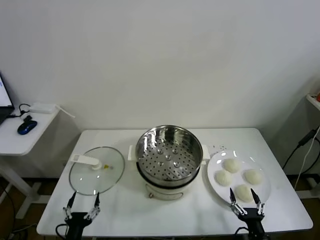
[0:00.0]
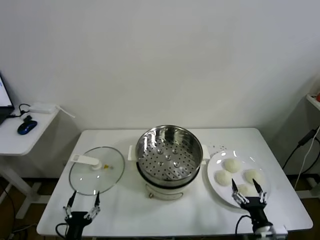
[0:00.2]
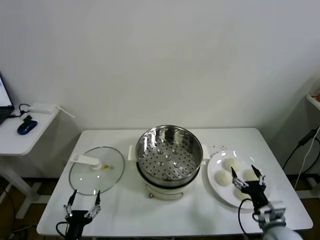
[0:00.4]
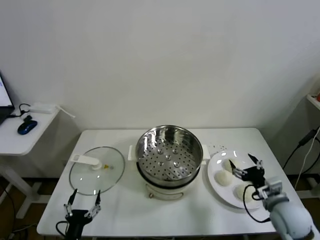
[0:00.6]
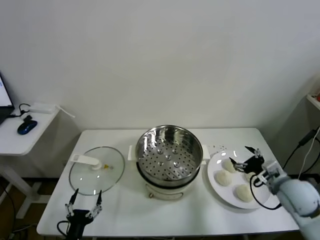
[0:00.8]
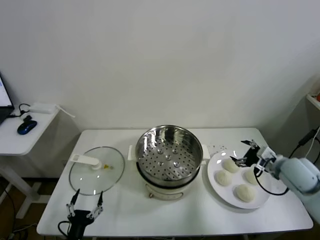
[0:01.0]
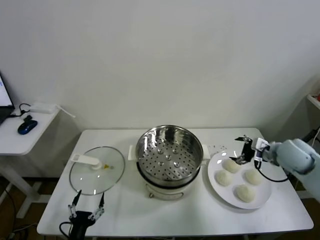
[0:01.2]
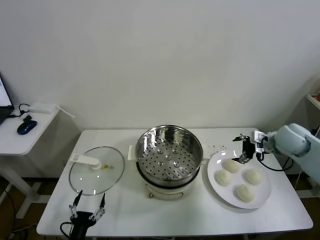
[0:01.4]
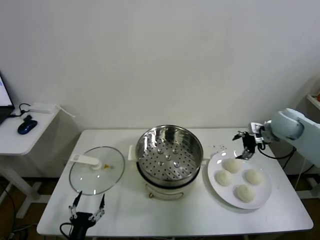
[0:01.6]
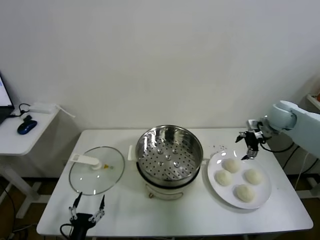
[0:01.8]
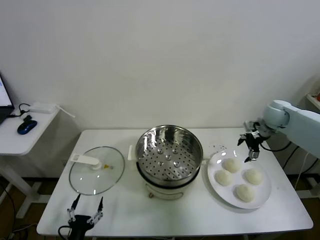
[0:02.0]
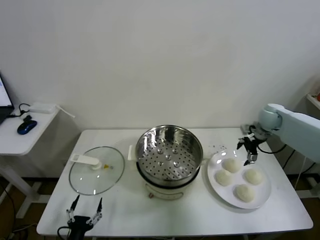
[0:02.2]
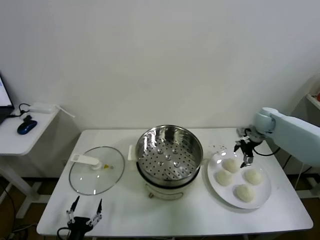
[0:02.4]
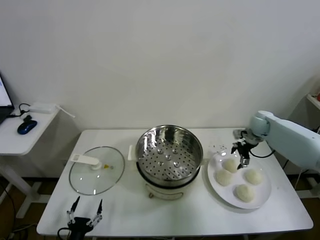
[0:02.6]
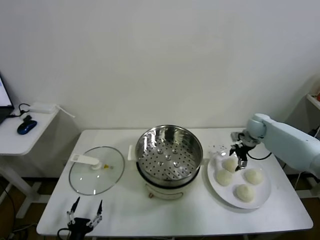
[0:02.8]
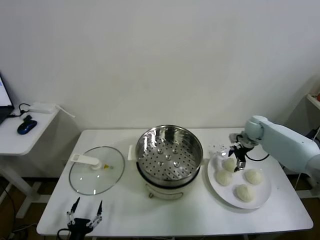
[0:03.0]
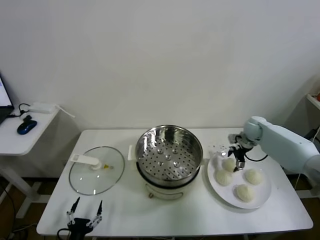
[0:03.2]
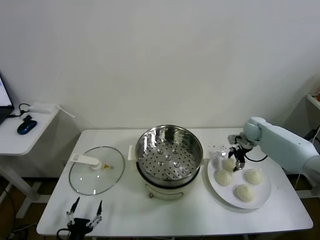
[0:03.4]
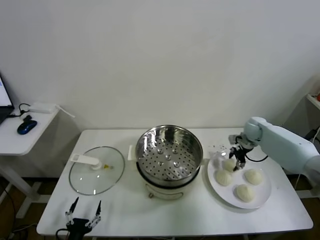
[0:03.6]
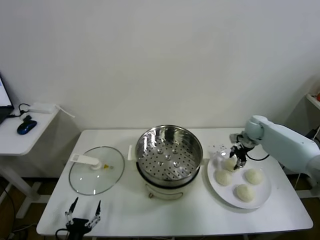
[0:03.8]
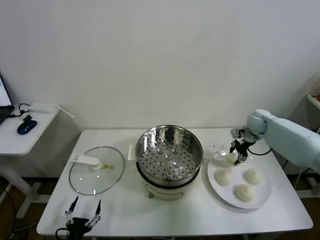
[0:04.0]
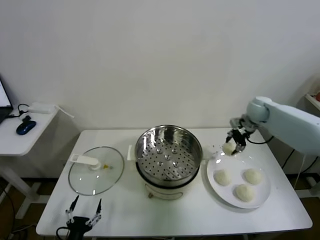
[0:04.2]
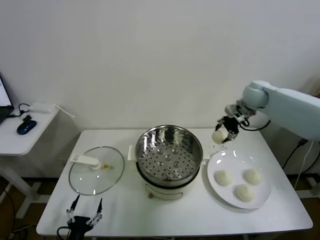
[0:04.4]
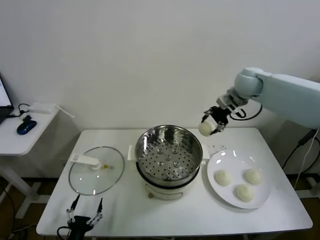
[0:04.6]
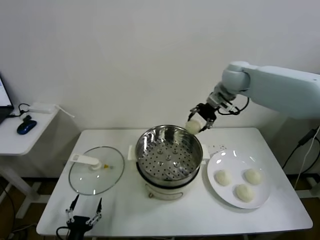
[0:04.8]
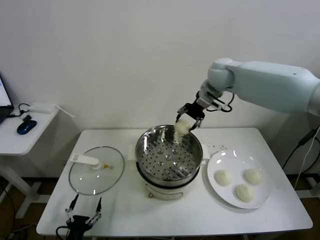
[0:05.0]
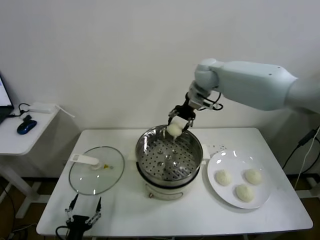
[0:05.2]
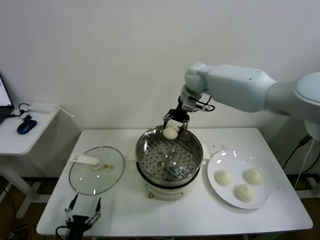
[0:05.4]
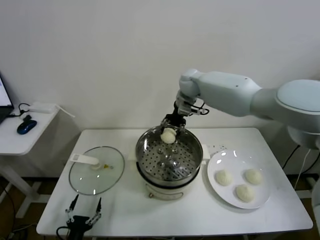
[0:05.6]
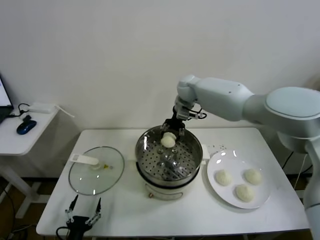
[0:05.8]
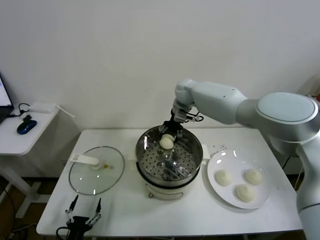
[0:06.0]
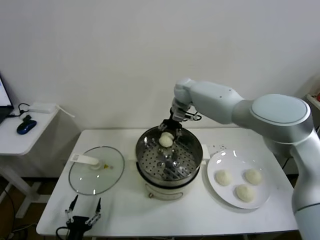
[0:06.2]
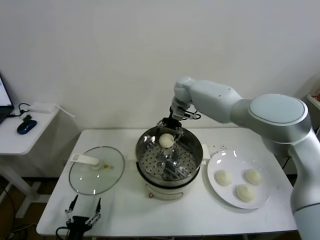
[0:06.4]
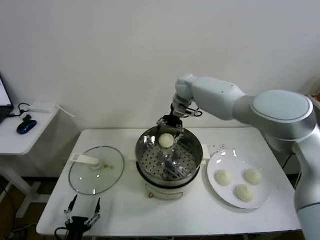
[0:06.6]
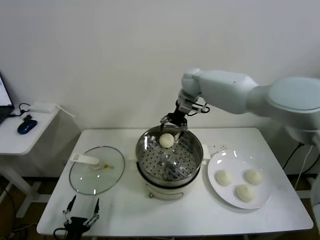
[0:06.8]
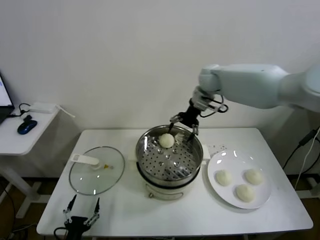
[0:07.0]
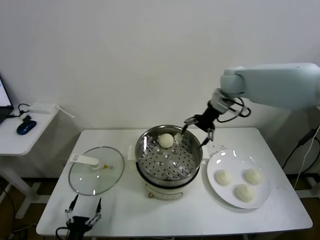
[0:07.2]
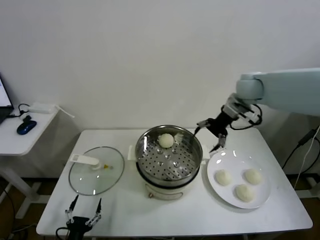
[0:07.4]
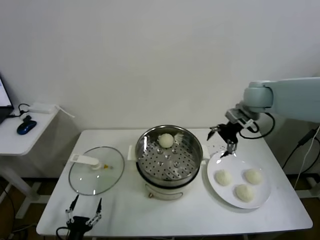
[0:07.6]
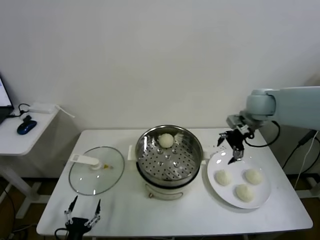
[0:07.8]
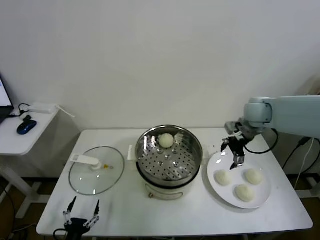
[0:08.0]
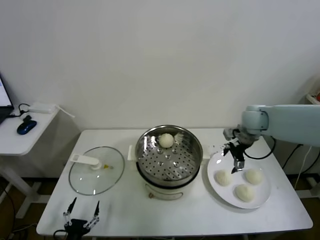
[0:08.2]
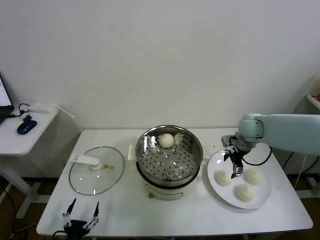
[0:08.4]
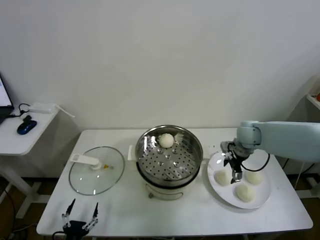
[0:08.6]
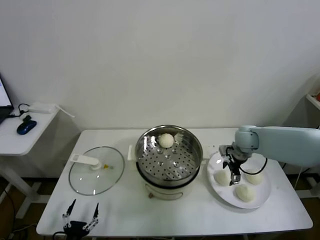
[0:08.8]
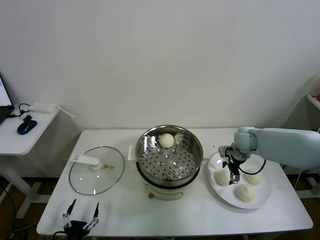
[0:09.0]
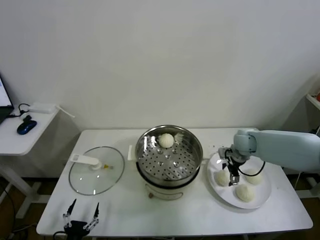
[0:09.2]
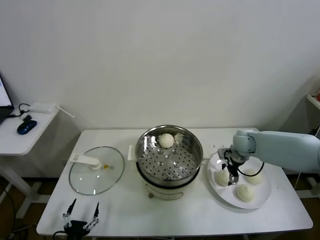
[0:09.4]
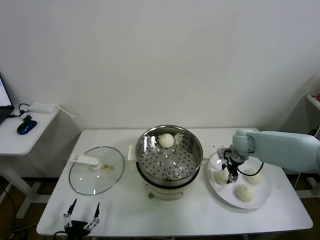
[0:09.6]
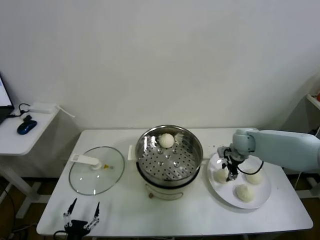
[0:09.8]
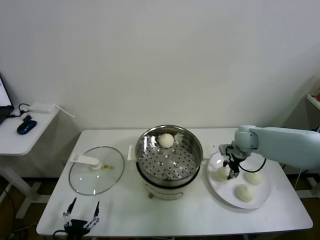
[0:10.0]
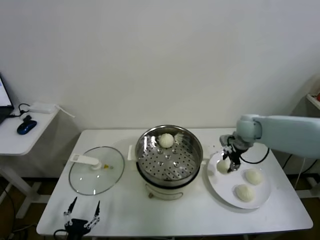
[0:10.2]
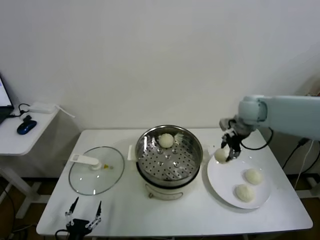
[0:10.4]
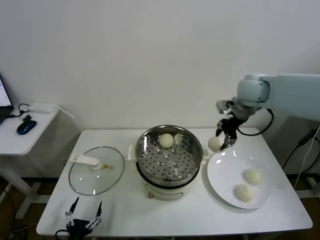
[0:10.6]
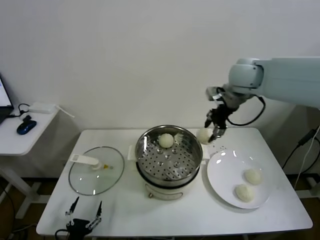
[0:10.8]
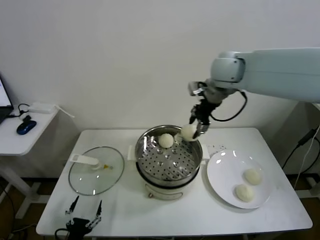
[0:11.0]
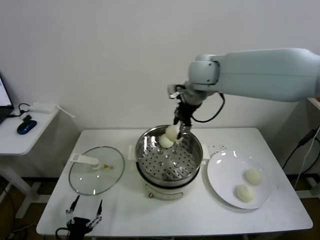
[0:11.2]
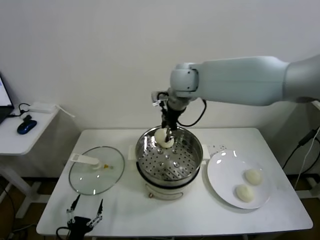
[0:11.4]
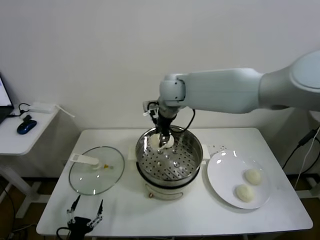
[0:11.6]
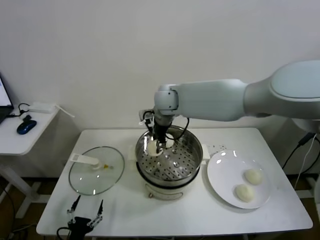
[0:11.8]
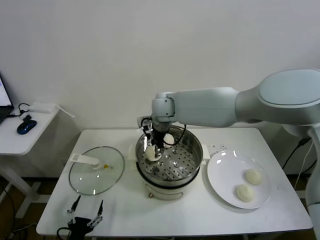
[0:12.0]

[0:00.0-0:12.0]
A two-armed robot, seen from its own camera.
Task of the whole recording: take steamed baozi put them in steamer.
Step, 0:00.0 to 0:03.6: Grasp the baozi in the plate with right gripper.
Step, 0:03.8 to 0:06.6: Place the baozi on the steamer with right gripper.
Step, 0:06.8 to 0:09.8: Grasp the baozi in the plate with right gripper.
0:01.6 to 0:03.0: The right gripper moves downward and forward, approximately 15 cm.
0:03.0 to 0:04.4: The right gripper heads upward and to the left, covering some 20 cm, and closes up.
0:04.4 to 0:06.0: The right gripper shifts some 20 cm to the left.
0:06.0 to 0:07.6: The right gripper heads to the right and backward, covering approximately 25 cm, and opens its fingers.
0:07.6 to 0:09.0: The right gripper moves downward, about 20 cm.
0:09.0 to 0:10.4: The right gripper shifts roughly 15 cm upward, and closes.
0:10.4 to 0:12.0: The right gripper moves to the left, about 30 cm.

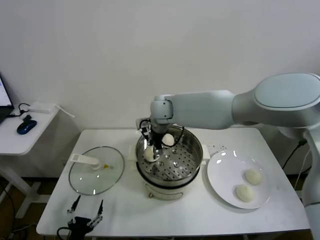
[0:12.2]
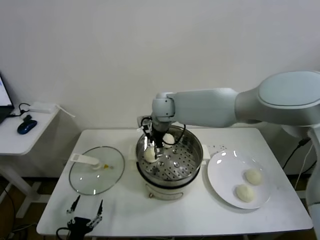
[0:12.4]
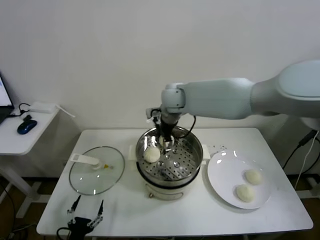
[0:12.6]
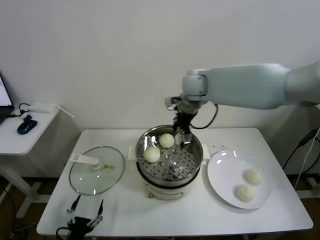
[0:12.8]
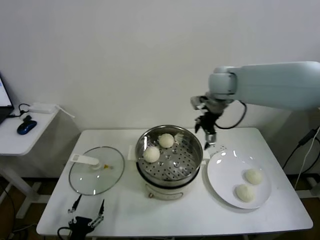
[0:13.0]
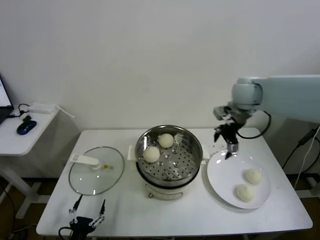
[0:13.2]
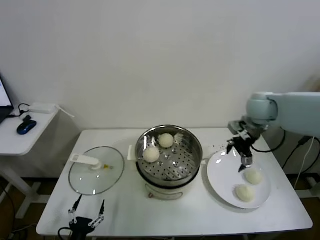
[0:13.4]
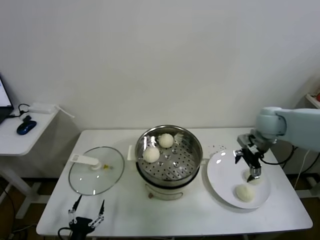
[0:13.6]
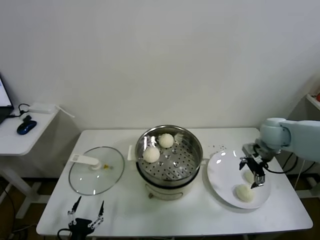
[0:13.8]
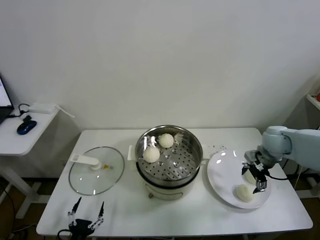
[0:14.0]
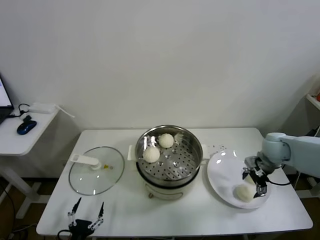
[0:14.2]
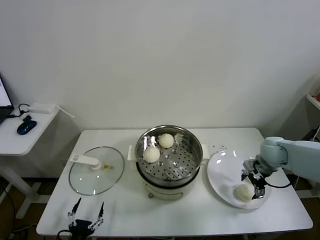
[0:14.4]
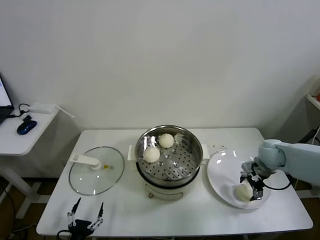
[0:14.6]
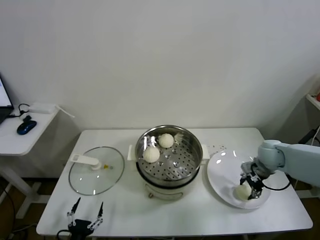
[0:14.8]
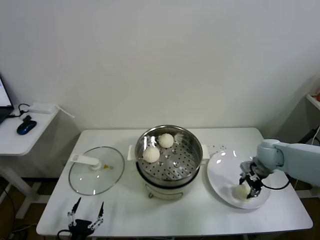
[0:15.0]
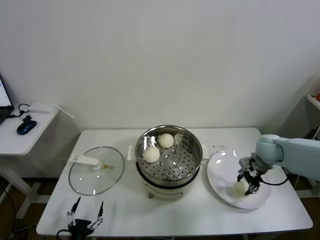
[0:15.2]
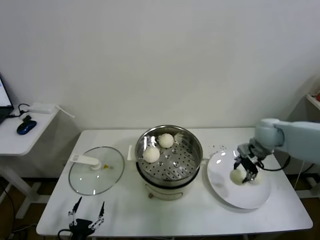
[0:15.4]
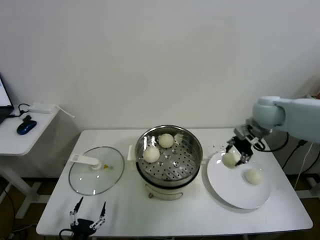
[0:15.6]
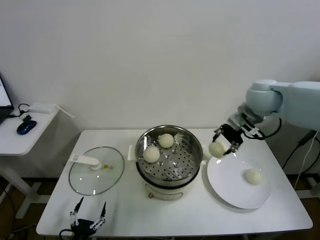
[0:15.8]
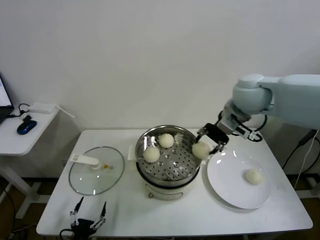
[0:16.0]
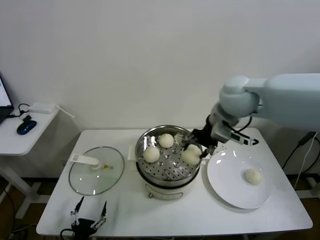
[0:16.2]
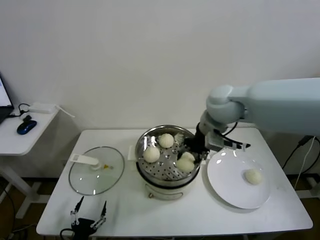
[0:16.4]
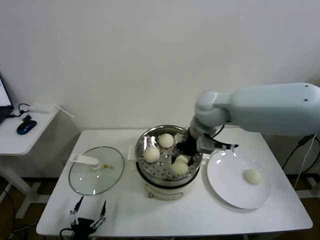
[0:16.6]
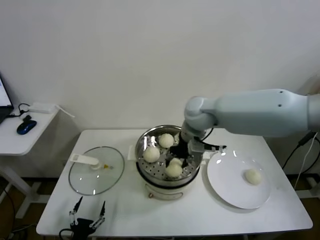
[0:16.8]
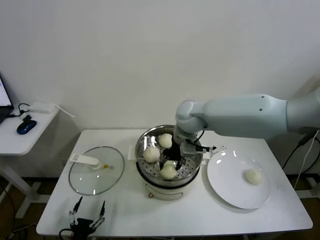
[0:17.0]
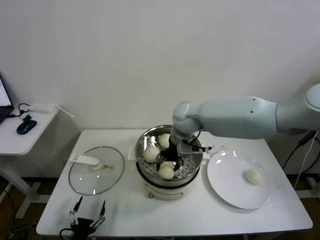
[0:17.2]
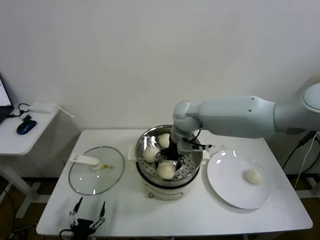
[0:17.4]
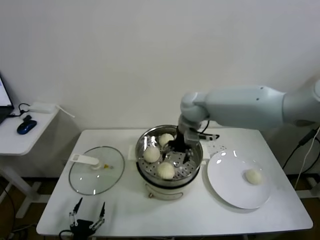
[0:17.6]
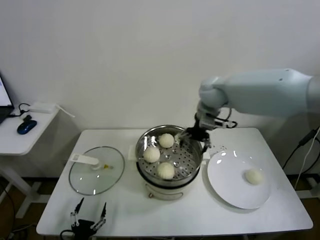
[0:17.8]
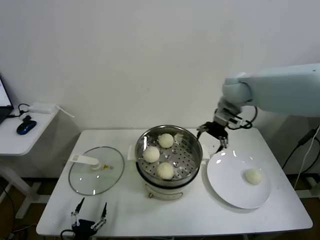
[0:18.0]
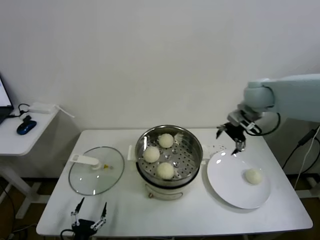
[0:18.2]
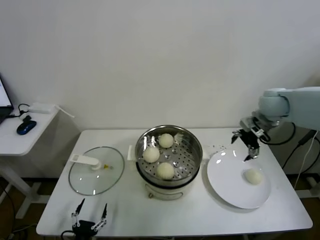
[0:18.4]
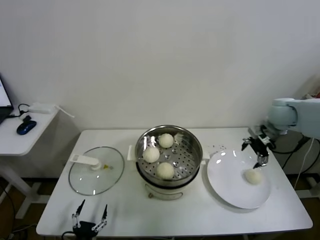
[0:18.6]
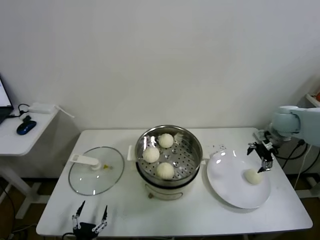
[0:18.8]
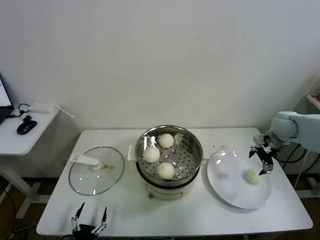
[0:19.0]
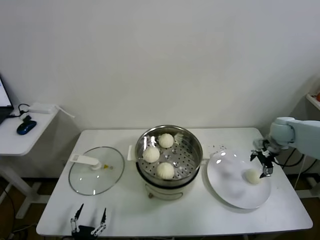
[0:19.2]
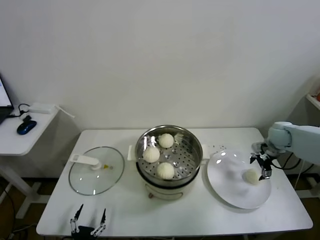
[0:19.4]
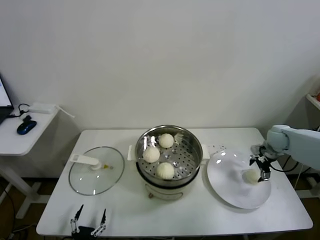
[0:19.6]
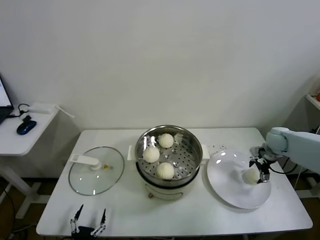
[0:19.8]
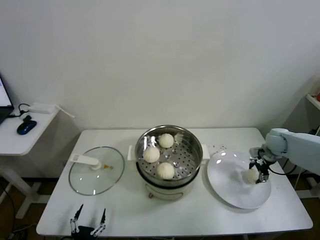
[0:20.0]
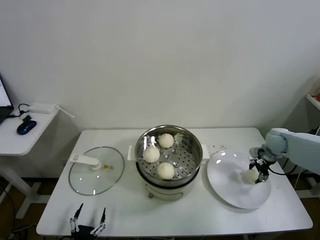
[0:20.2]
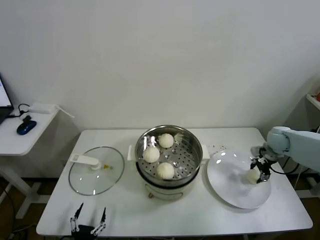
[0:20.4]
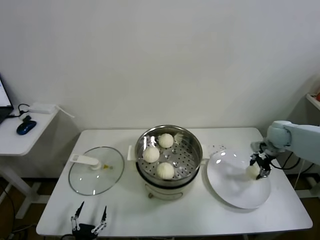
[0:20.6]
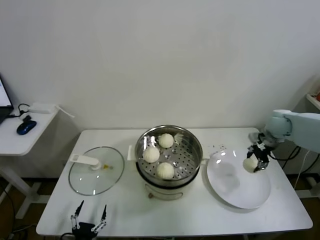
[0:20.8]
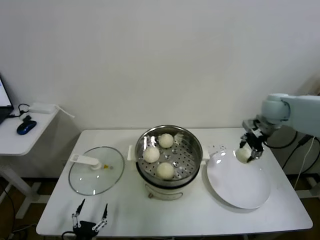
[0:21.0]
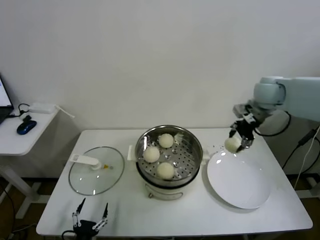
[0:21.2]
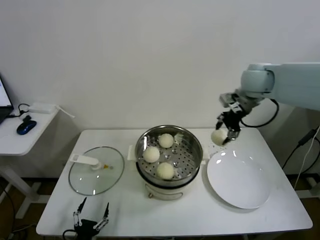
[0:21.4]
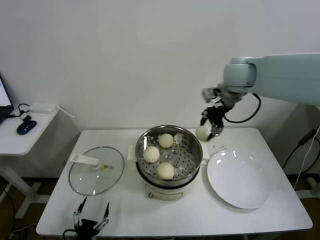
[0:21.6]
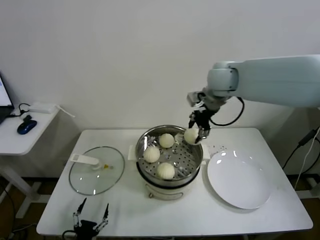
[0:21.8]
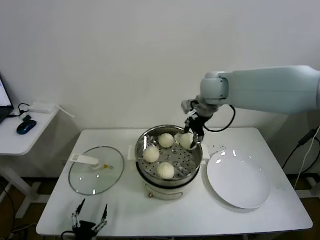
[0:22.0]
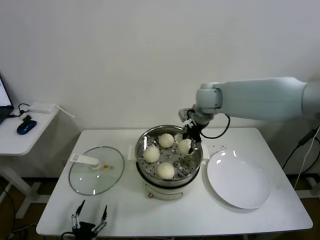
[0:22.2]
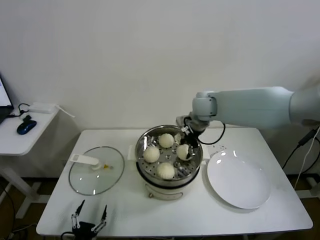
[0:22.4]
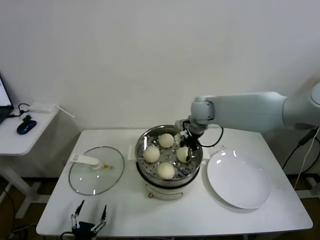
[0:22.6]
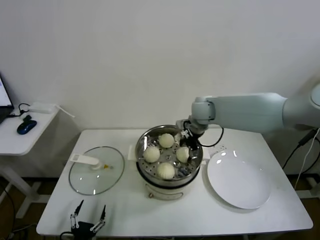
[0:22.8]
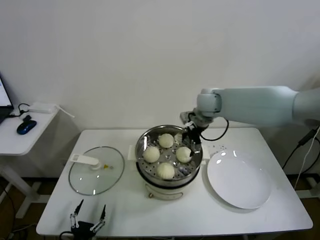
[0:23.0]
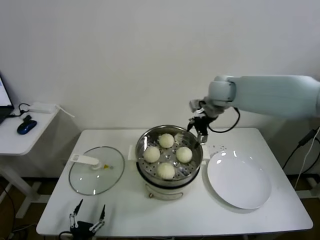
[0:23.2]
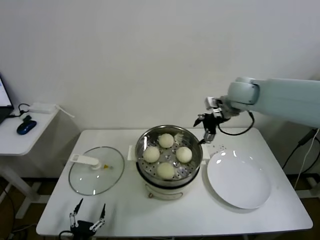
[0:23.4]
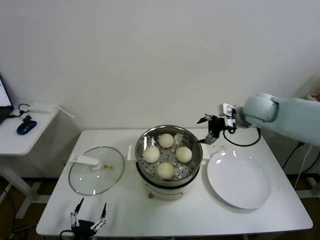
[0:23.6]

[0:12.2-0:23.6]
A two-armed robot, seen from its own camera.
Task of the whole recording: take steamed baozi put them in steamer.
Step, 0:12.8 to 0:14.8: Grasp the baozi in the plate with right gripper.
Step, 0:15.0 to 0:17.4: Place the baozi on the steamer with right gripper.
Step, 0:17.8 to 0:20.0: Grasp the baozi in the plate with right gripper.
Step, 0:20.4 to 0:22.8: Place the baozi on the steamer with right gripper.
0:12.2 to 0:13.6: The right gripper heads to the right, covering approximately 35 cm, and opens up.
0:13.6 to 0:15.0: The right gripper travels downward by approximately 10 cm, and closes its fingers.
0:15.0 to 0:16.4: The right gripper goes about 30 cm upward and to the left.
0:16.4 to 0:17.8: The right gripper moves forward, about 10 cm, travels downward and back again, roughly 10 cm each way, and opens up.
0:17.8 to 0:19.4: The right gripper is displaced to the right and downward by about 35 cm.
0:19.4 to 0:20.8: The right gripper ends up about 5 cm from where it was, and closes.
0:20.8 to 0:22.2: The right gripper travels to the left and upward by roughly 30 cm.
0:22.2 to 0:23.6: The right gripper shifts roughly 15 cm to the right, and opens.
